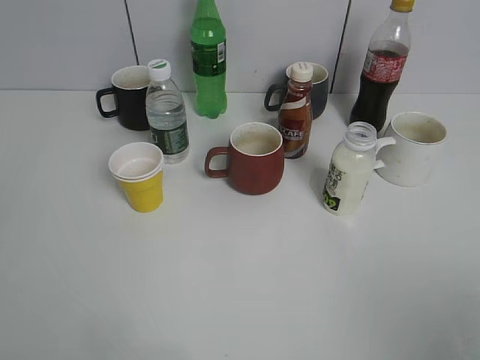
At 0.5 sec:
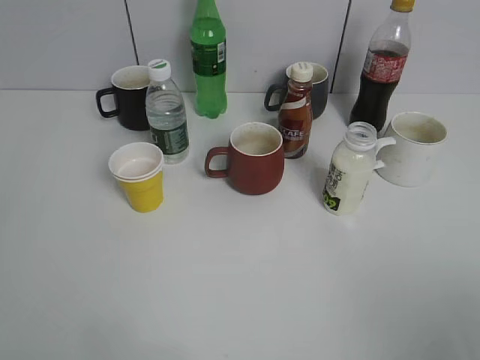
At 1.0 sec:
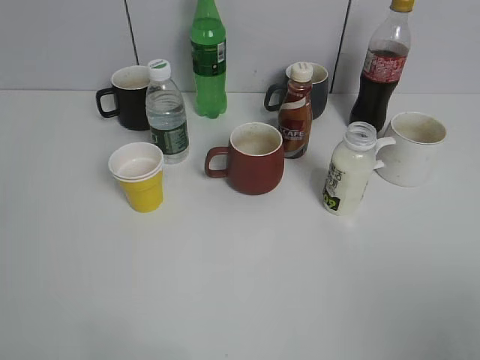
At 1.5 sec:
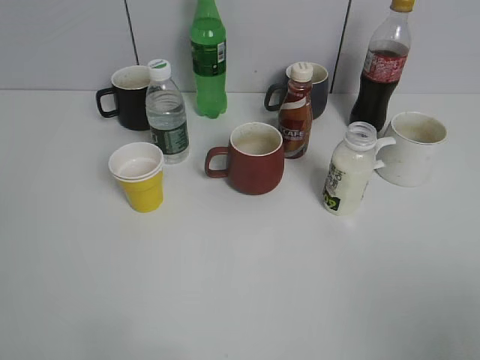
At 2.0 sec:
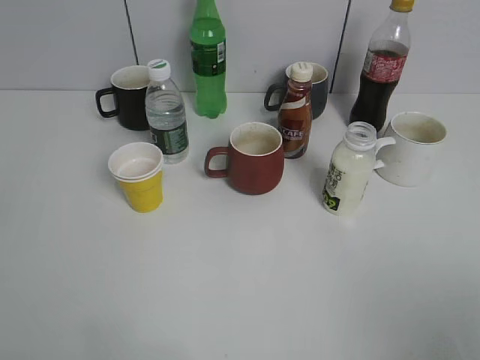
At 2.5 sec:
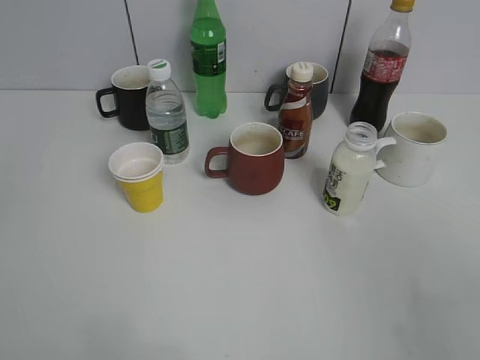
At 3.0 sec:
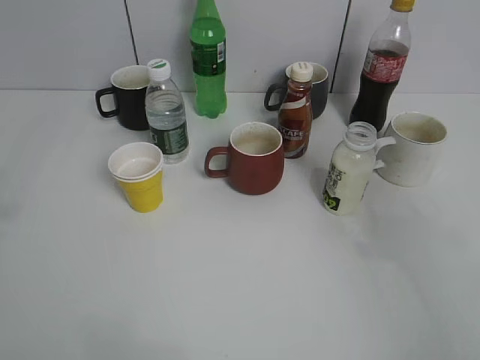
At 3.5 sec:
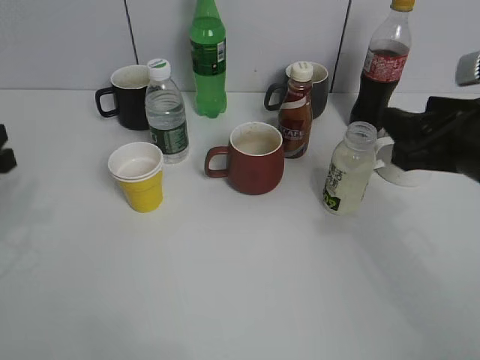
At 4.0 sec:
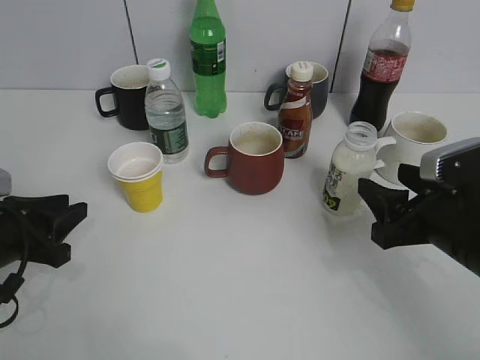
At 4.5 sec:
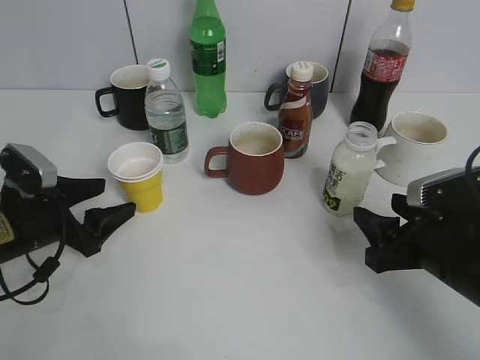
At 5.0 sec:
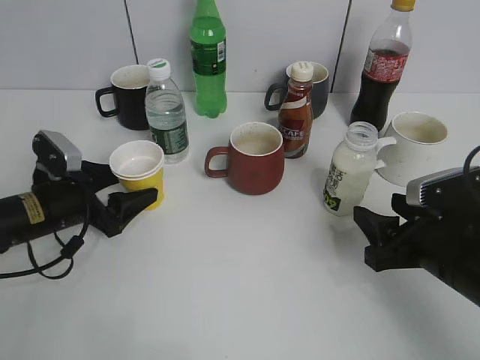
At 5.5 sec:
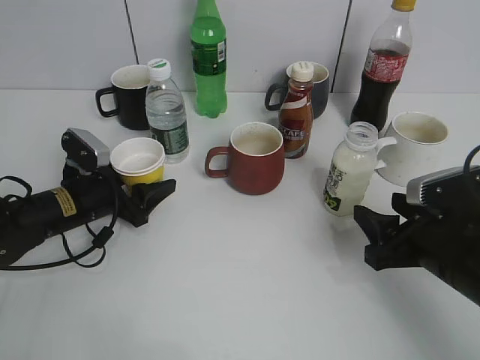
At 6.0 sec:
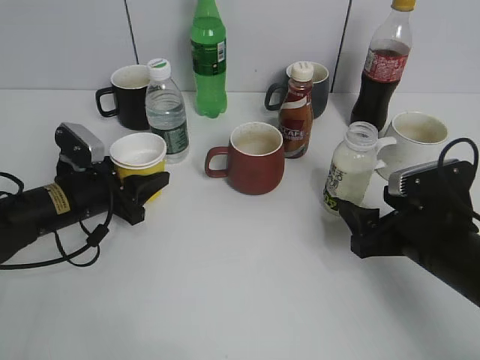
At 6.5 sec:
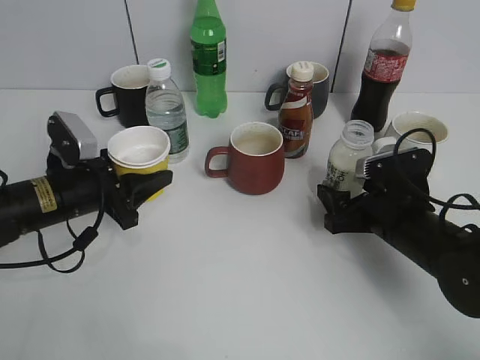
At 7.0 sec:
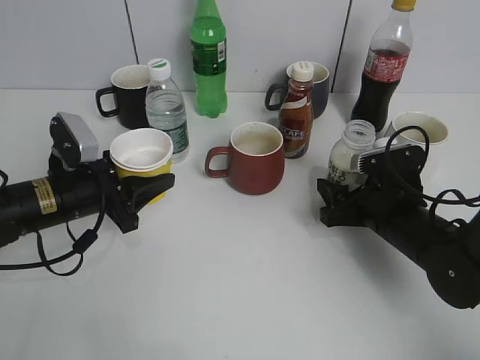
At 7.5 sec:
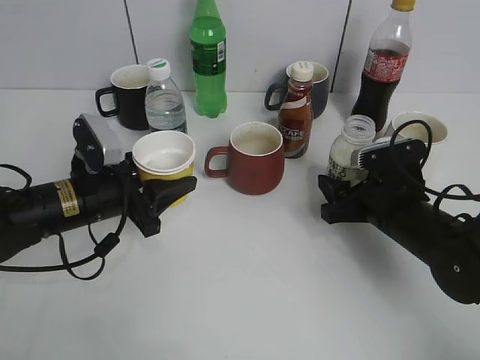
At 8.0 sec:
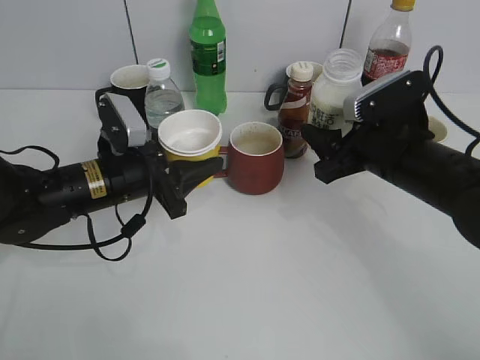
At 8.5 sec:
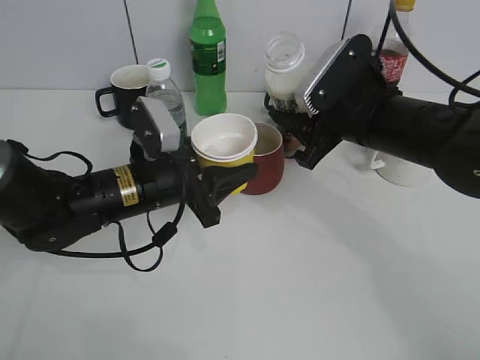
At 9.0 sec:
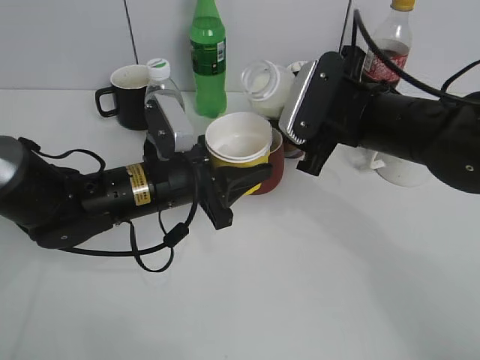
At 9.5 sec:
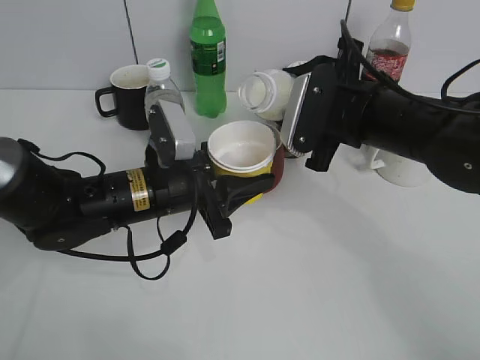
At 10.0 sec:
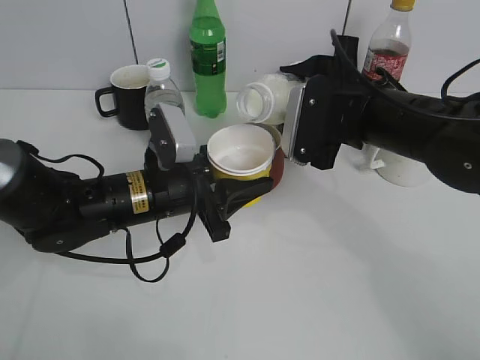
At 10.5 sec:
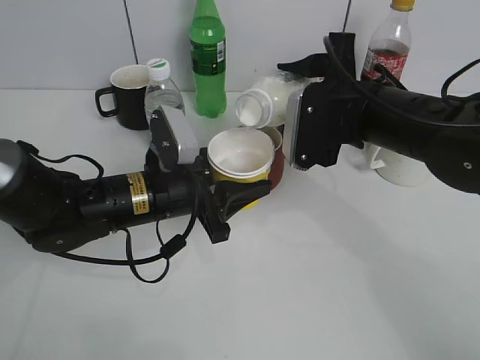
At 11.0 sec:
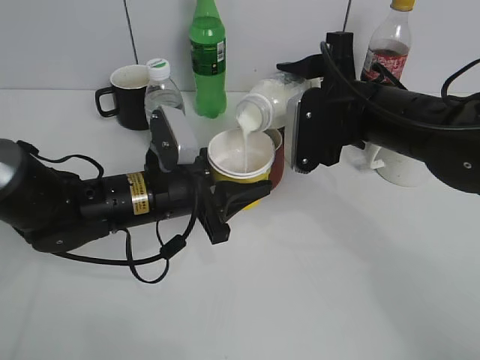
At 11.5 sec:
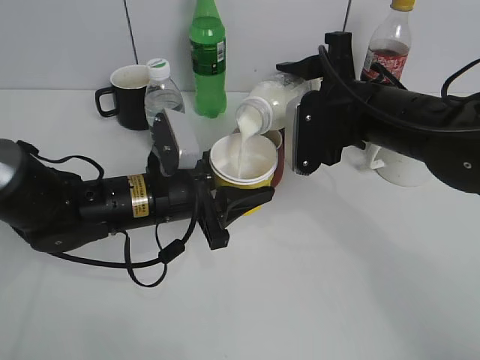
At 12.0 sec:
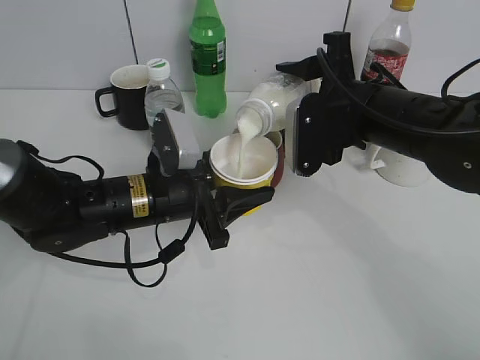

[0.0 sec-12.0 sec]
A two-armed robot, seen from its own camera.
Step, 3.5 sec to 5.5 sec: Grasp the yellow paper cup with left gripper.
Step, 6.5 sec to 7.0 sec: Grasp the bottle with yuexian Milk with right gripper.
2.0 sec to 4.0 sec: The grippers both shift forward and downward by roughly 30 cm.
4.0 sec to 6.0 sec: The right gripper ends up some 5 cm from where it was, and opens up. Meanwhile the left gripper travels forward and to the right by some 10 cm, and opens, then closes again.
6.0 sec to 8.0 sec: The right gripper heads forward and upward, covering some 10 cm, and closes its fingers, while the left gripper shifts roughly 5 cm to the right.
8.0 sec to 10.0 sec: The left gripper is displaced to the right by some 5 cm. The right gripper ends up some 5 cm from where it was.
10.0 sec to 12.0 sec: The grippers stay close to where they were, moving slightly.

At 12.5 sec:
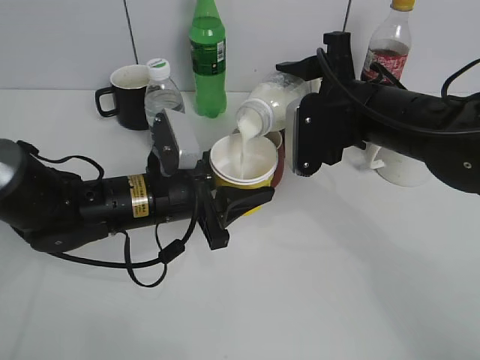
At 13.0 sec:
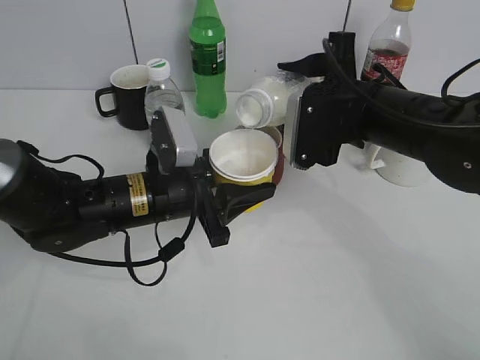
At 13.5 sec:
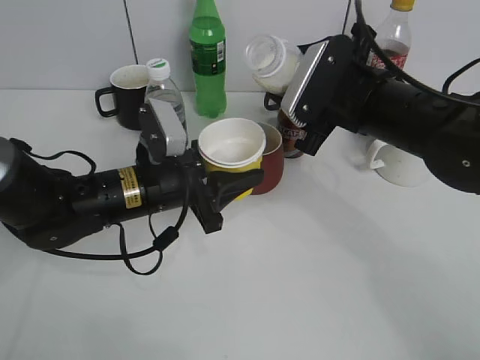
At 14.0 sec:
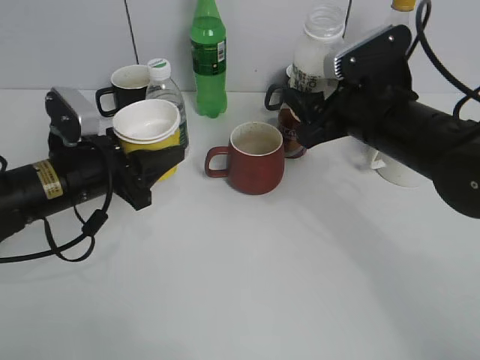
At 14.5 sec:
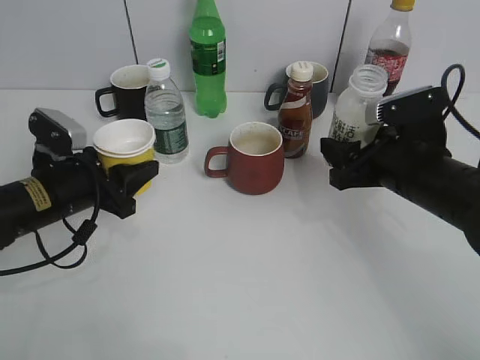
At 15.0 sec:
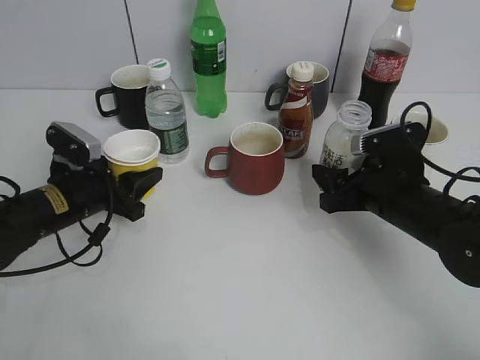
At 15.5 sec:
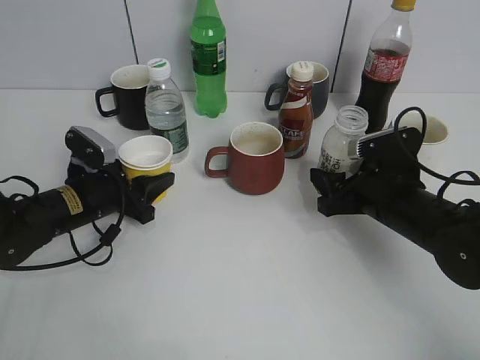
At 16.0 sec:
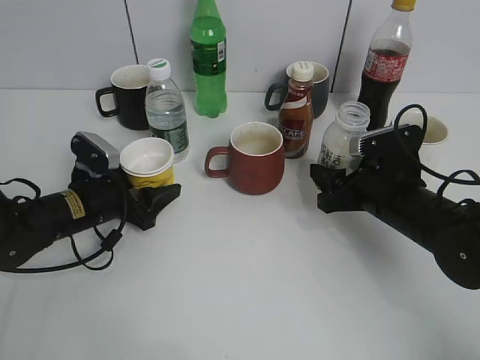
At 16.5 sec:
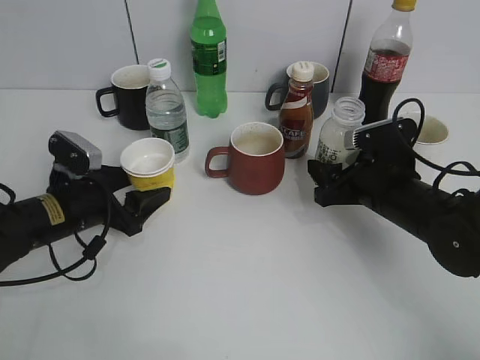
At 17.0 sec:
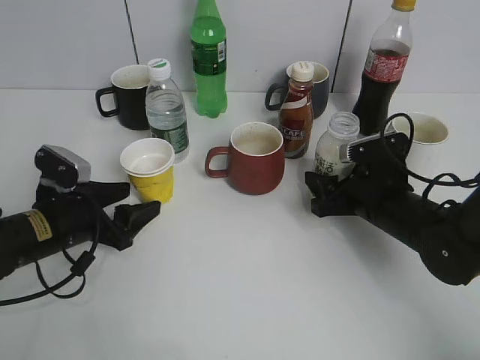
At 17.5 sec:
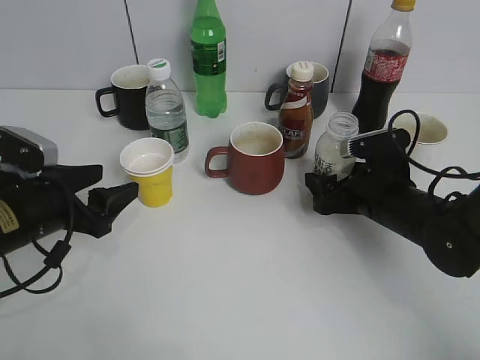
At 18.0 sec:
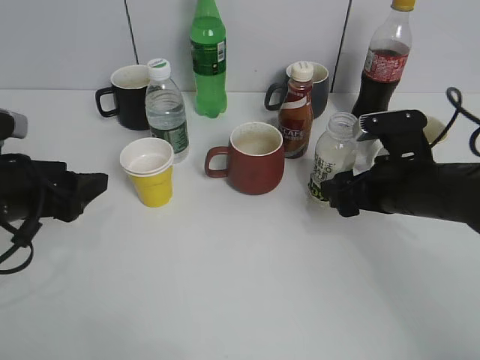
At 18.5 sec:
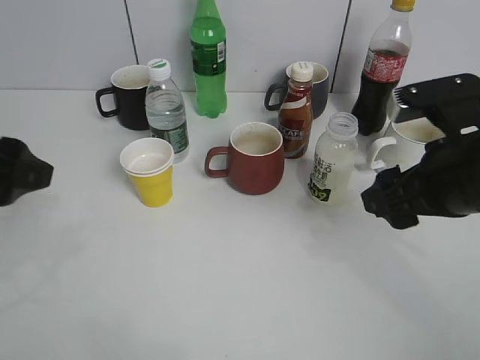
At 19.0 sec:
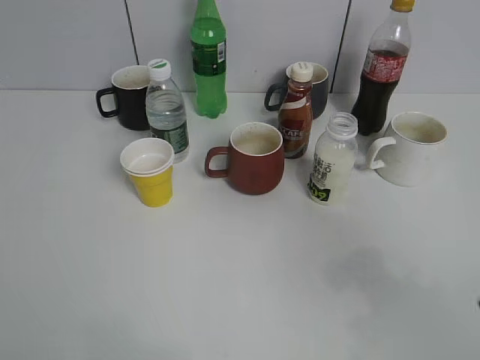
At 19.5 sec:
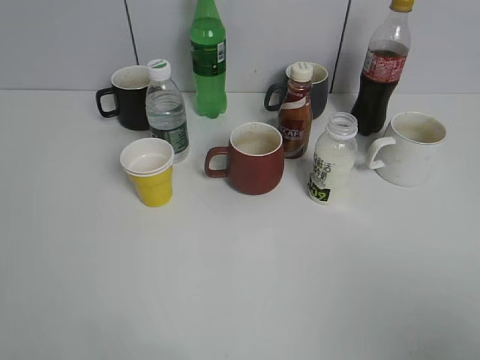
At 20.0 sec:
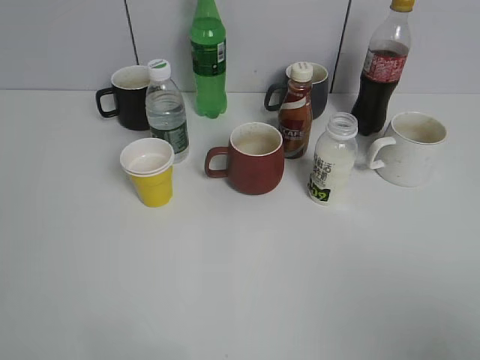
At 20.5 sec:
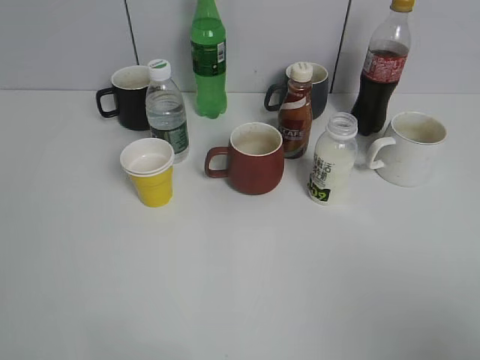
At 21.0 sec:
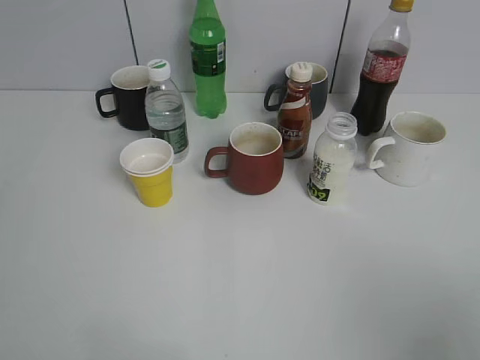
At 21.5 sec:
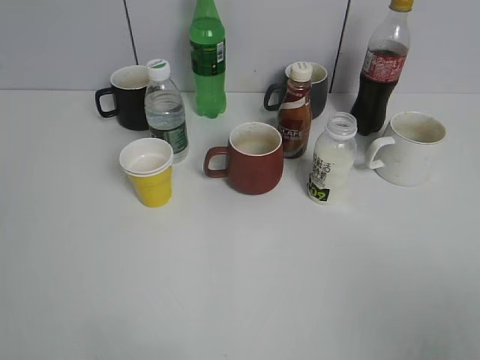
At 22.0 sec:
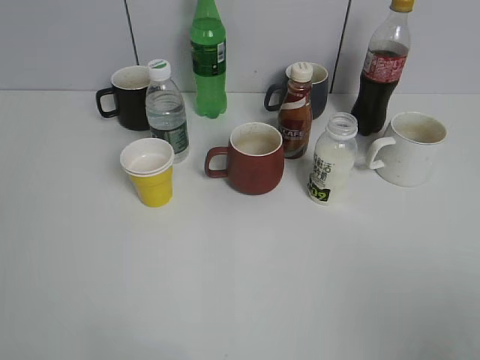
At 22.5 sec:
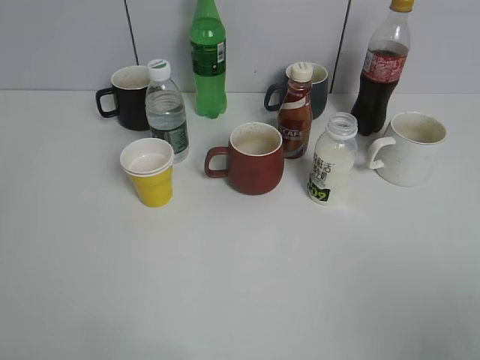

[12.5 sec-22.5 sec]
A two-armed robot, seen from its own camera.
Step, 13.5 sec to 18.0 sec: Place the yuexian Milk bottle on the table with right gripper.
12.5 sec to 14.5 sec: The left gripper is displaced to the left by some 10 cm. The right gripper moves to the right and downward, some 10 cm.
14.5 sec to 16.5 sec: The left gripper opens its fingers, while the right gripper changes place by approximately 5 cm.
16.5 sec to 18.5 sec: The two grippers go some 20 cm upward and backward. The right gripper opens up.
18.5 sec to 20.5 sec: The left gripper is displaced backward and to the left by roughly 20 cm, while the right gripper travels backward and to the right by roughly 25 cm.
